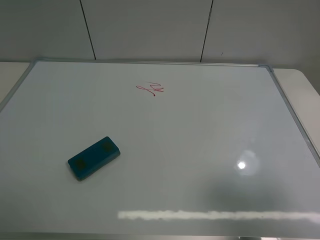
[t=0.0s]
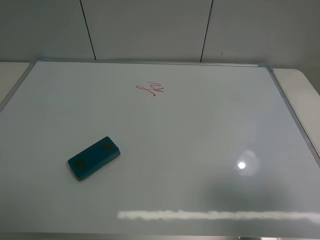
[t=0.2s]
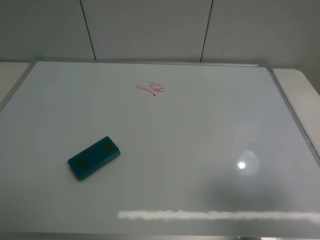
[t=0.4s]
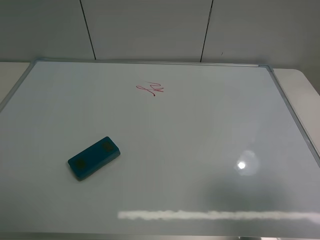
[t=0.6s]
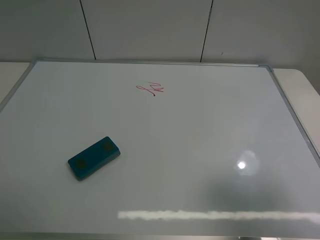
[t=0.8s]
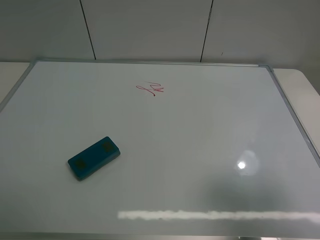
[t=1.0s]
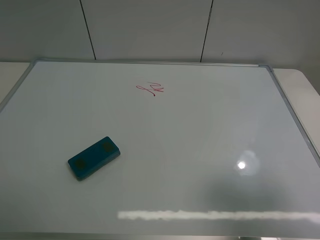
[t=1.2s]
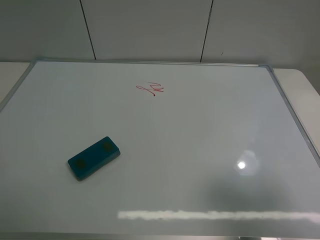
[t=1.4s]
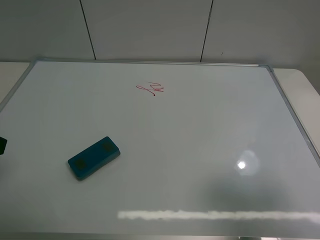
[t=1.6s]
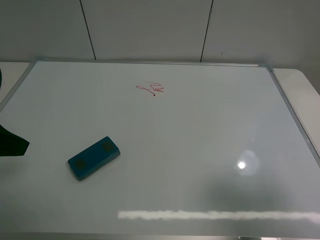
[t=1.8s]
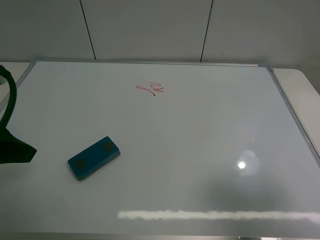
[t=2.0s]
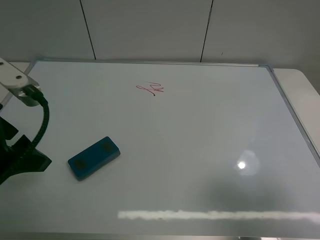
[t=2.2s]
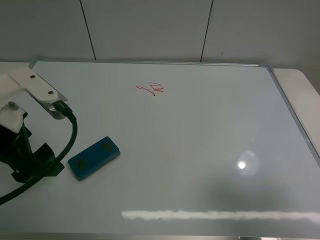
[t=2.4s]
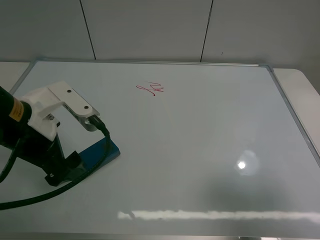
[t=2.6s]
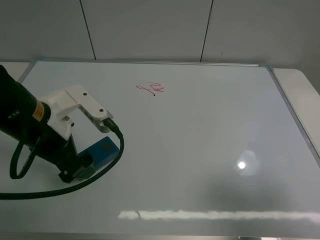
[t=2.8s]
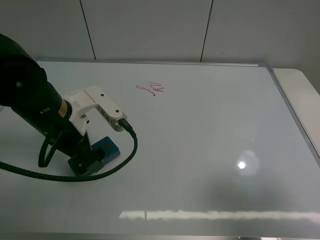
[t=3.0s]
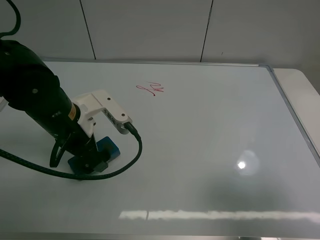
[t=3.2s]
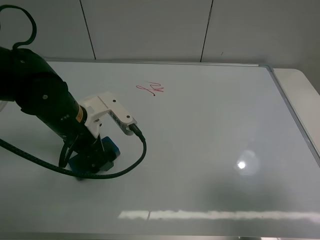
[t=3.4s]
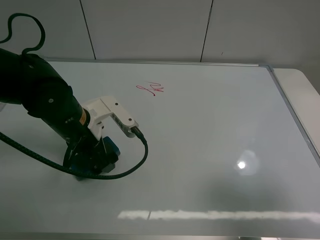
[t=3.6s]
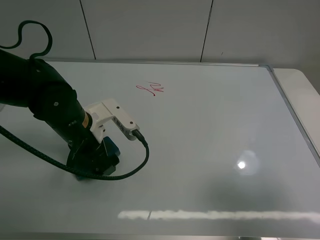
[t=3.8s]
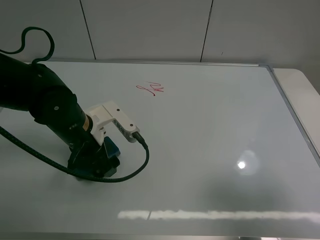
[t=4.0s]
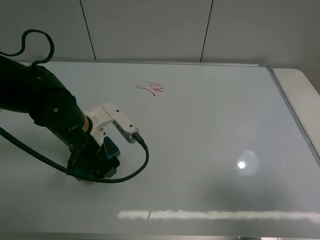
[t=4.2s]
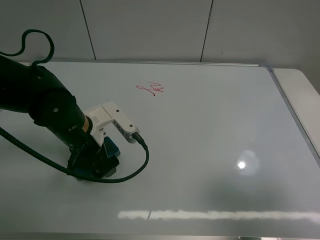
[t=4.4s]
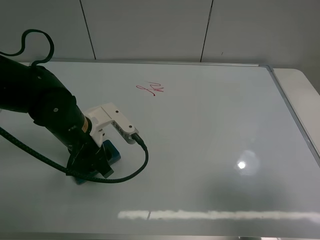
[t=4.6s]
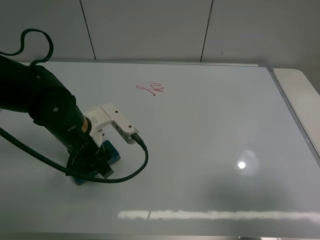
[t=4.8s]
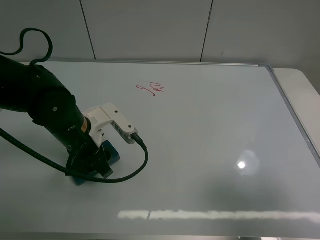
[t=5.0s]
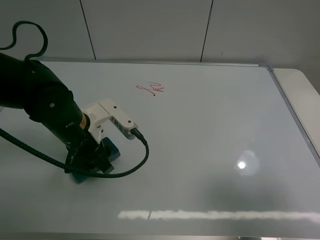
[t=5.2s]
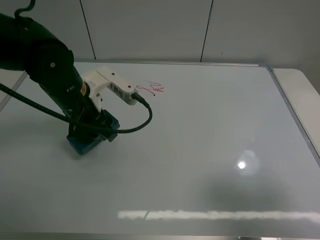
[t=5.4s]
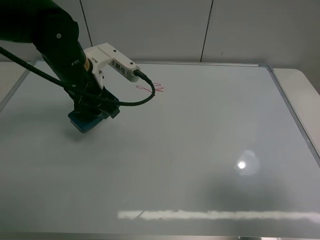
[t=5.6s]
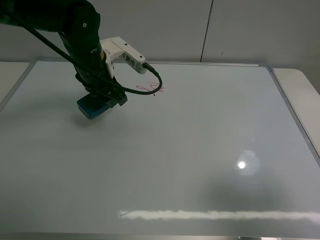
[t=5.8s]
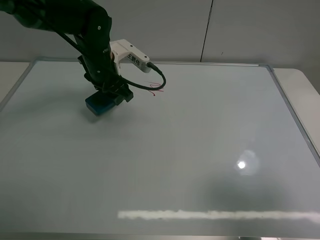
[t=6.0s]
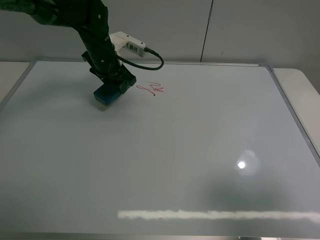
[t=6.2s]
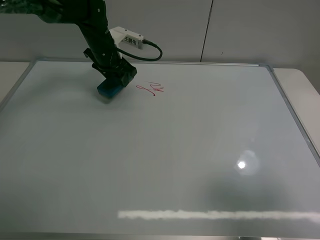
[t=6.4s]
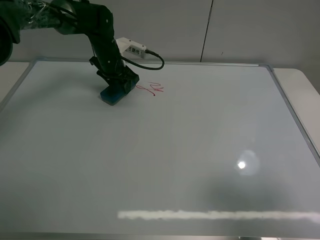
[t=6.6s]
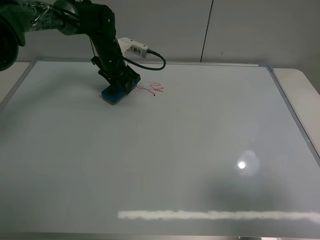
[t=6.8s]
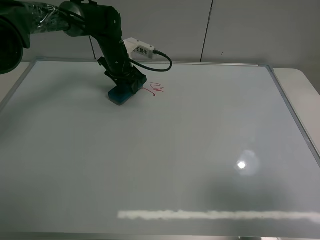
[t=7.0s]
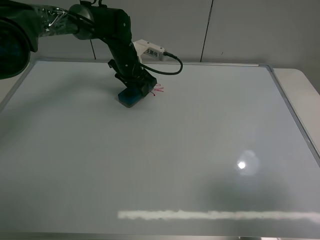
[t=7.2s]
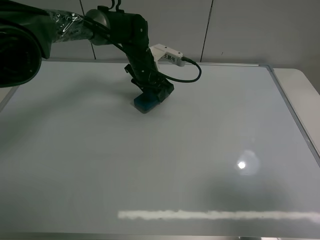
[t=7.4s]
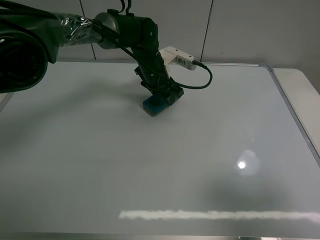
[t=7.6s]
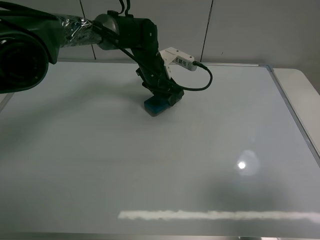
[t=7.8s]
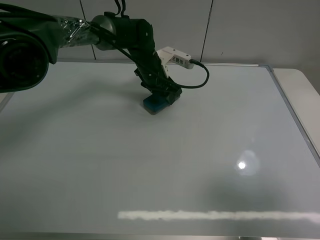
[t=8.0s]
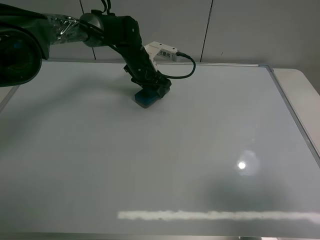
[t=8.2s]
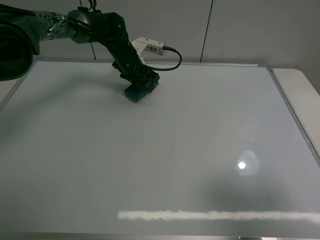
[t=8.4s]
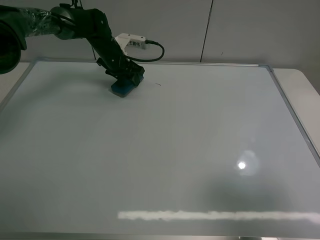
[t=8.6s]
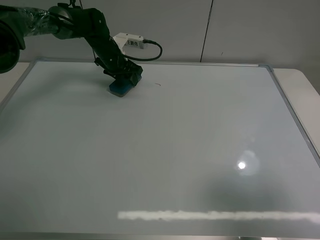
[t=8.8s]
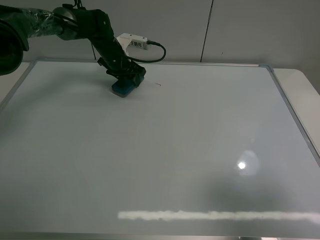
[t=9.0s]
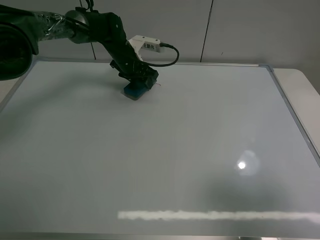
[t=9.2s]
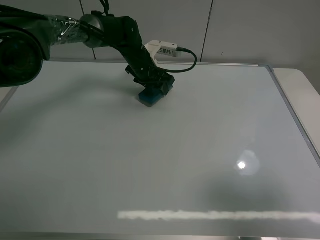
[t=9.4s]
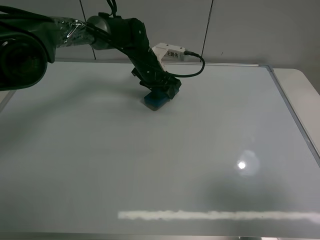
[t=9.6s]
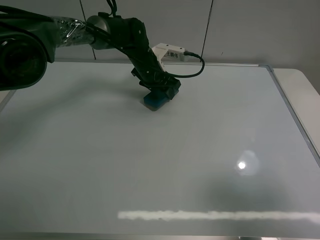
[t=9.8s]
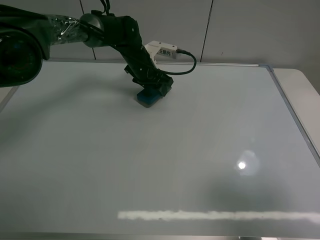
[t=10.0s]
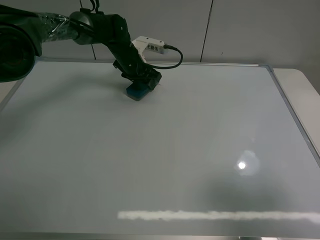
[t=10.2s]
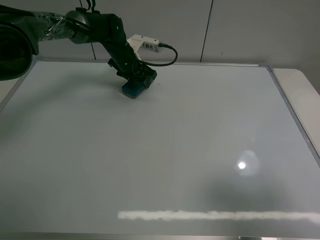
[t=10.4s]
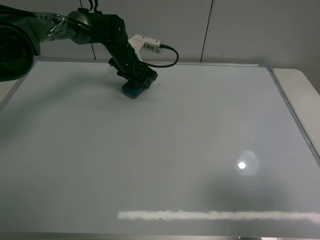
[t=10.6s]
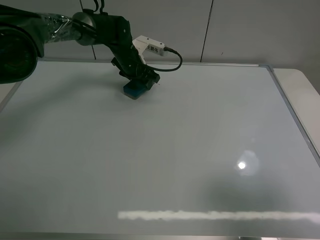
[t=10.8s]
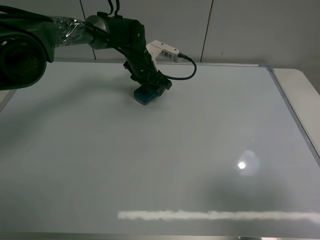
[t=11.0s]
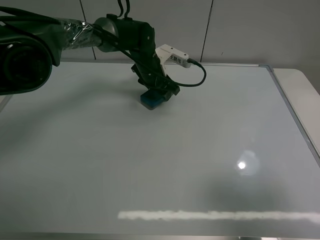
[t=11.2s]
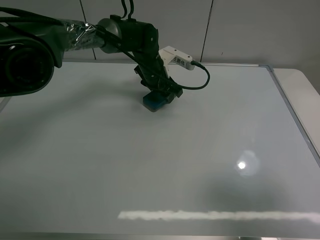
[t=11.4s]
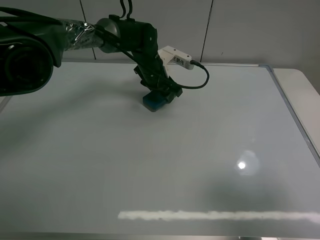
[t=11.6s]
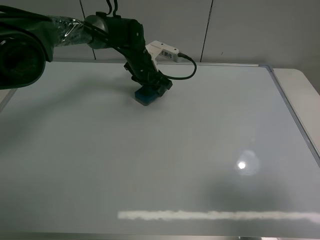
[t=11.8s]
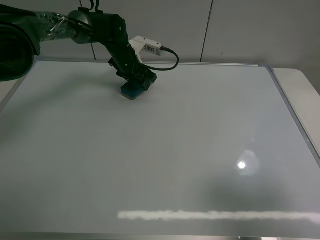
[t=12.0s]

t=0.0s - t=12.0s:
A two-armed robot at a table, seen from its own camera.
Task of the whole recording: use the left claw to pick up the whiteboard eraser, wipe the notes on the whiteboard clean, and then put them back in place.
Step, t=0.0s - t=4.6s: Grasp the eraser with the left gripper.
Step, t=4.8s - t=12.0s: Grasp the eraser and wipe the blackboard with the left gripper.
t=1.6s - t=3.0s: The left gripper goes approximately 20 cm to the right, downward and forward.
t=3.0s - t=4.4s: The left gripper shifts by roughly 5 cm.
t=4.4s - t=6.0s: The left gripper moves forward, some 15 cm, and closes up.
t=6.0s - t=7.6s: The left gripper moves to the right and forward, roughly 10 cm.
t=7.6s - t=9.0s: The left gripper moves to the left and forward, approximately 15 cm.
t=9.0s - t=10.4s: The left gripper moves roughly 10 cm to the right and comes back.
t=10.4s - t=12.0s: The left gripper travels to the right and back again, about 10 cm each way.

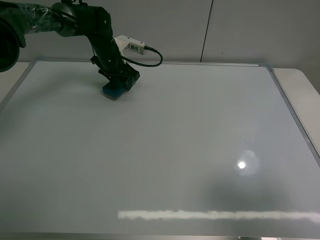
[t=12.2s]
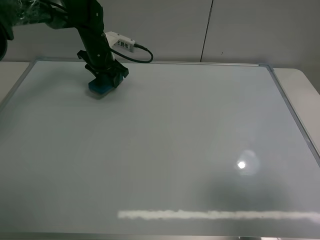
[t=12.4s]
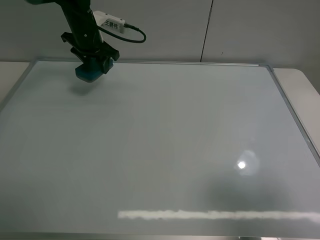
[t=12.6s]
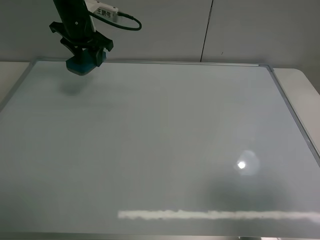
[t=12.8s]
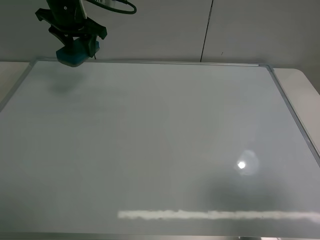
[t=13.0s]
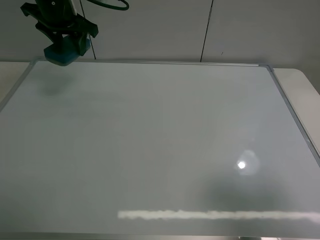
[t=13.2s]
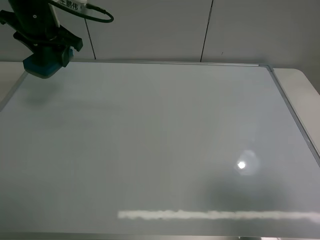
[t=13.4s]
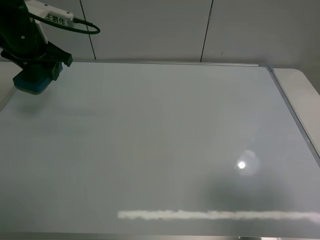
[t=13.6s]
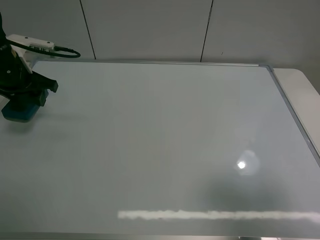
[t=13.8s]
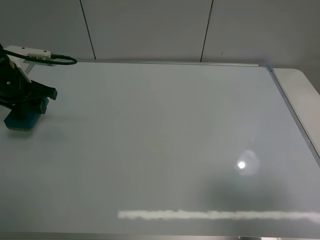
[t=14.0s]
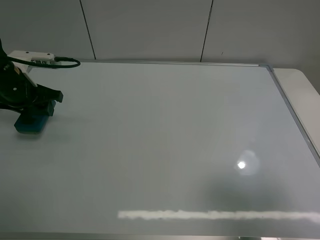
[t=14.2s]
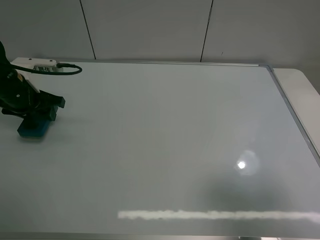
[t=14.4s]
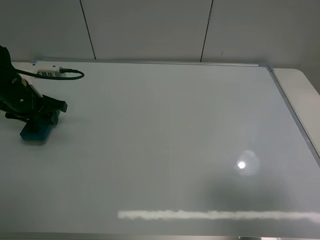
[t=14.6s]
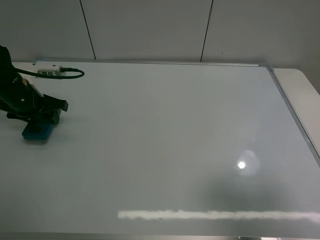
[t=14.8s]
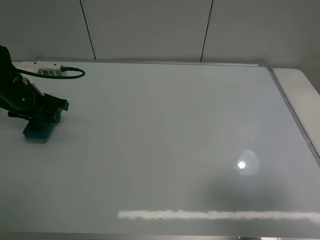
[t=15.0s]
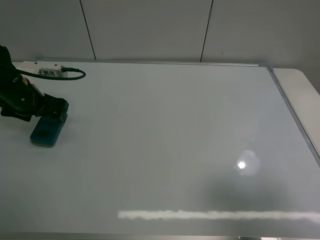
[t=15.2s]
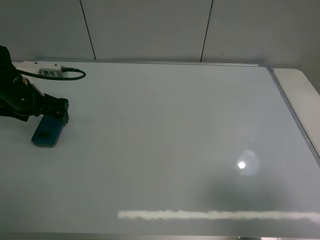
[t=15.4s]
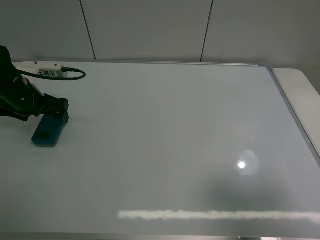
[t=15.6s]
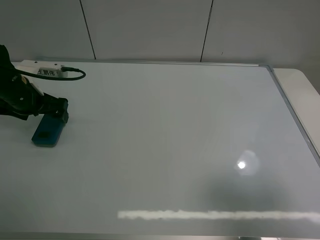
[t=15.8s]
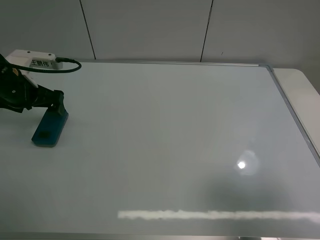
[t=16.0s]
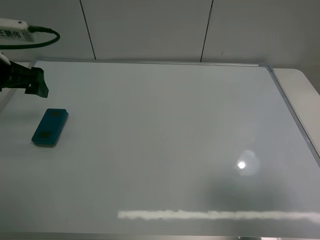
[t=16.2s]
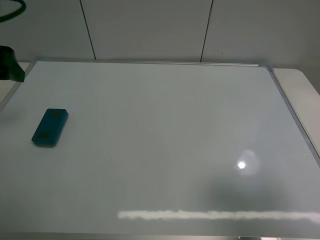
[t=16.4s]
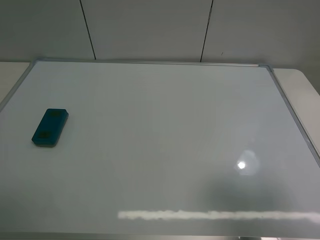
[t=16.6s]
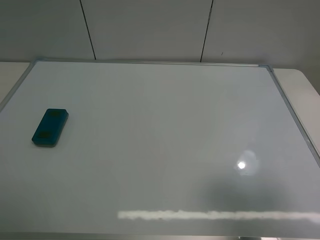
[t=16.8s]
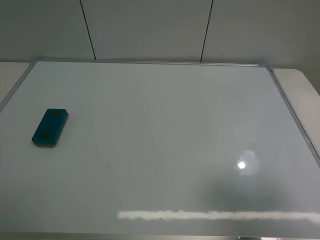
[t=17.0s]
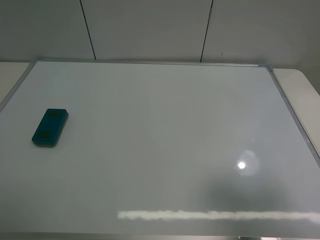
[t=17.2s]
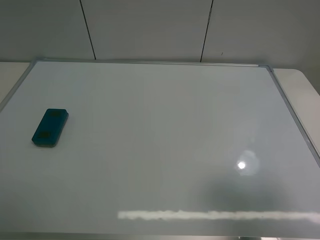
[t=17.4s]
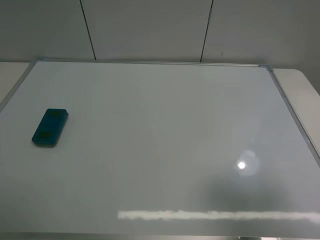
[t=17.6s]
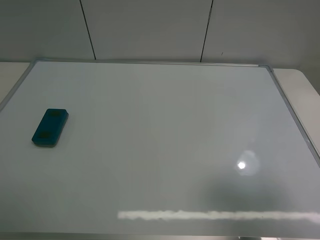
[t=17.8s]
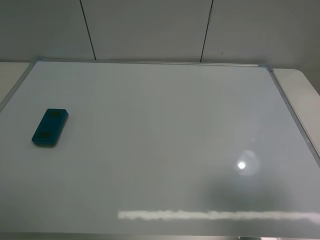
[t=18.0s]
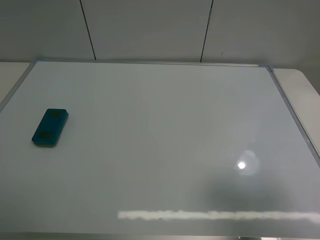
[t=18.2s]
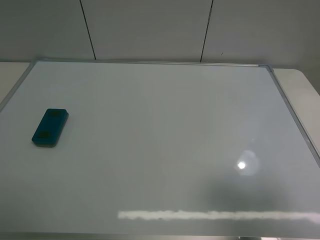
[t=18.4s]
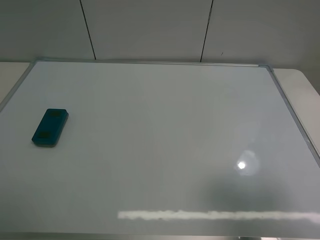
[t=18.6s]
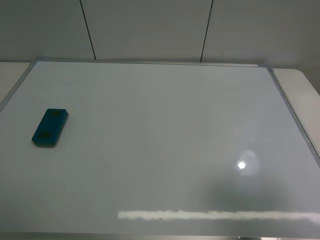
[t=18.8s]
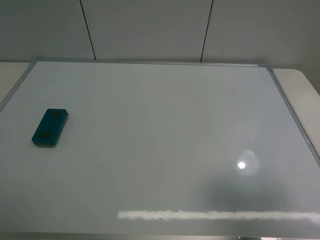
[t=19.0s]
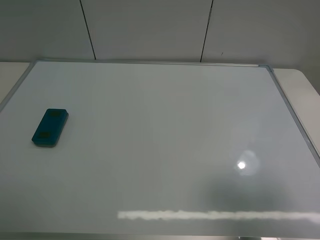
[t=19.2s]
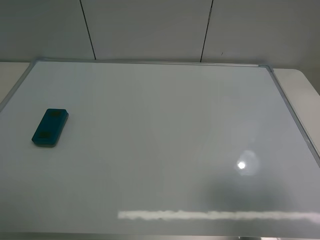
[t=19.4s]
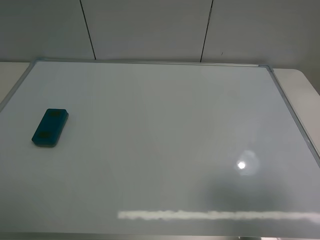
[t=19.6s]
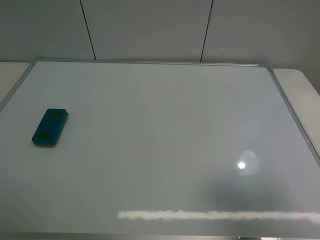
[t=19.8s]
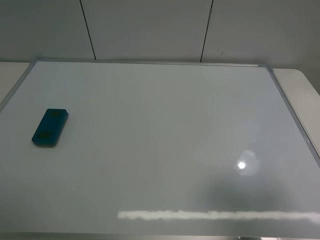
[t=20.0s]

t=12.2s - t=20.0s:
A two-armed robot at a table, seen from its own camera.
Task of the whole recording: use the left claw to pick up the whiteboard eraser, wipe the notes on the whiteboard clean, and then put them back in place.
Step, t=12.2s - t=15.2s: Place the eraser with the left gripper.
t=12.2s - t=13.8s: The left gripper goes about 20 cm backward and to the left.
t=13.8s - t=15.4s: The left gripper moves some 5 cm, and opens.
t=15.4s - t=16.8s: The left gripper is displaced upward and backward by approximately 35 cm.
t=18.4s - t=20.0s: Neither gripper changes place.
